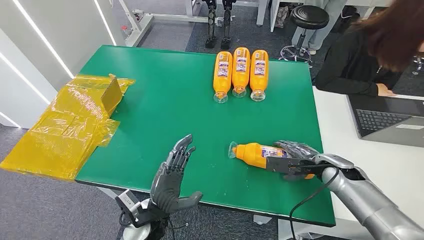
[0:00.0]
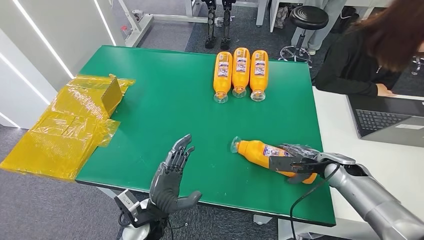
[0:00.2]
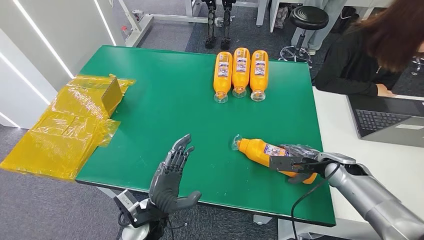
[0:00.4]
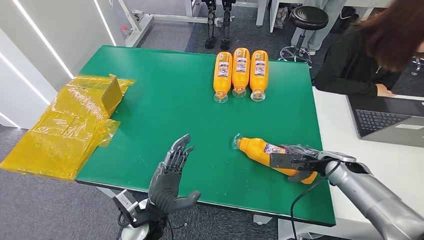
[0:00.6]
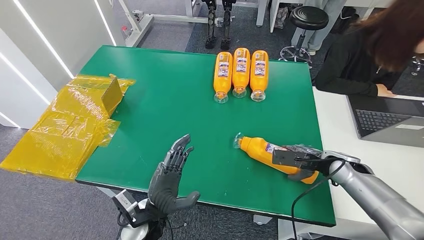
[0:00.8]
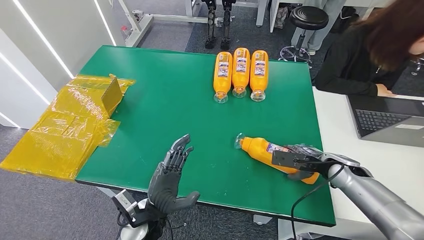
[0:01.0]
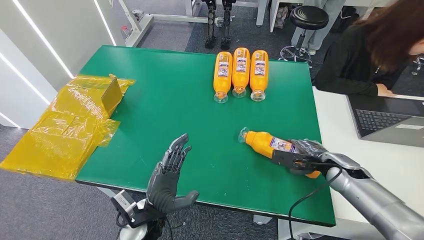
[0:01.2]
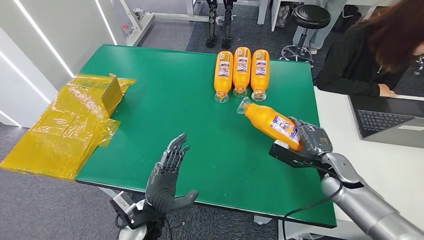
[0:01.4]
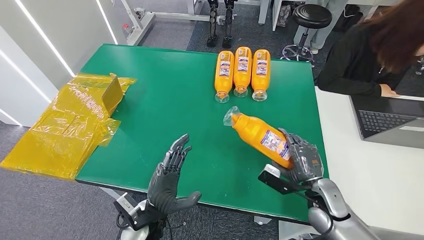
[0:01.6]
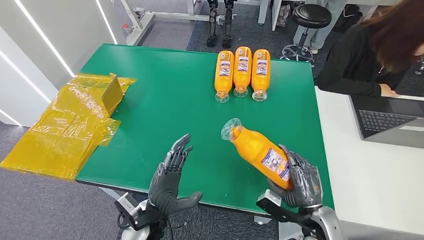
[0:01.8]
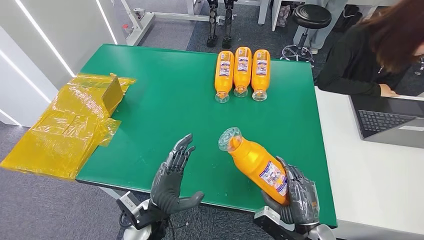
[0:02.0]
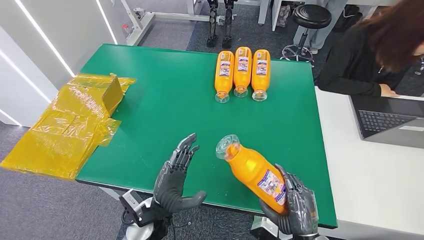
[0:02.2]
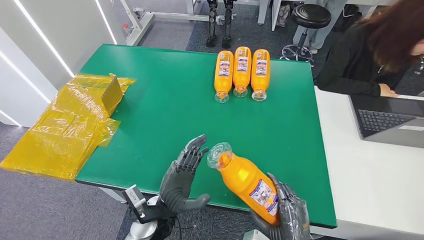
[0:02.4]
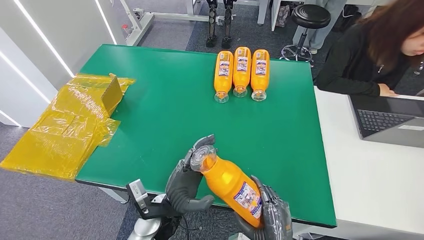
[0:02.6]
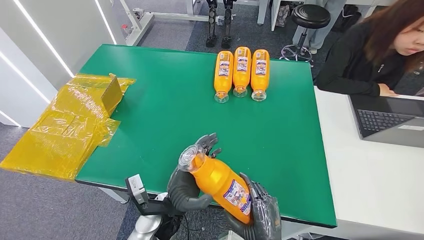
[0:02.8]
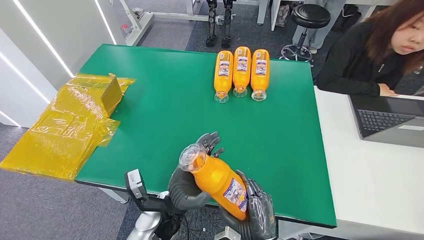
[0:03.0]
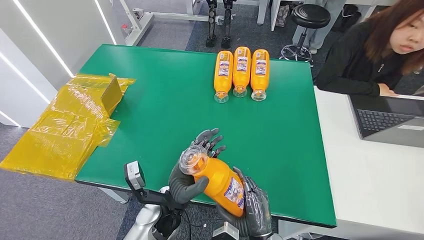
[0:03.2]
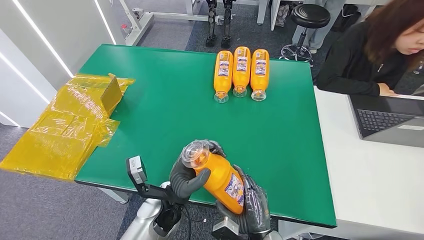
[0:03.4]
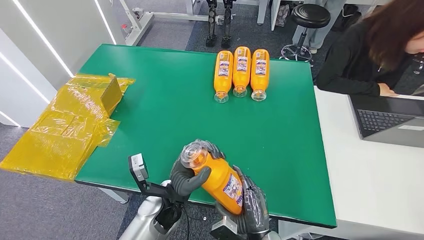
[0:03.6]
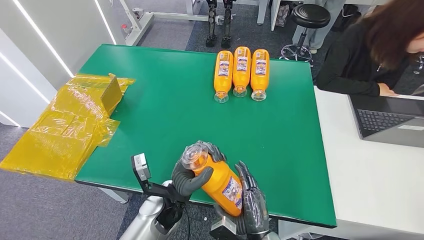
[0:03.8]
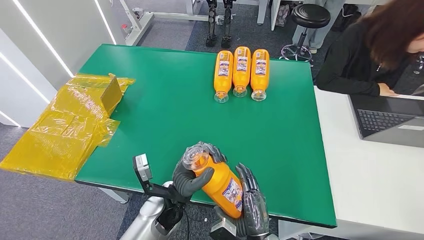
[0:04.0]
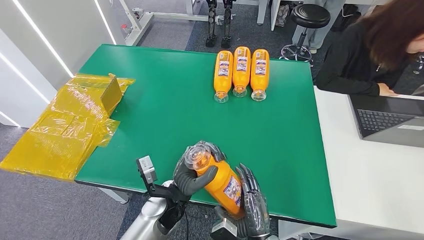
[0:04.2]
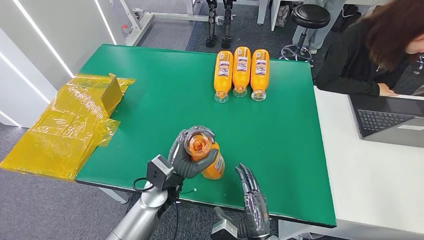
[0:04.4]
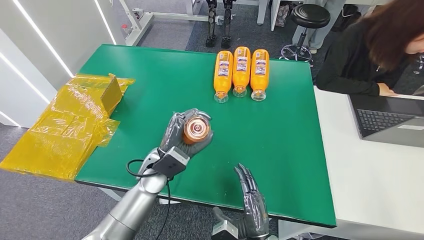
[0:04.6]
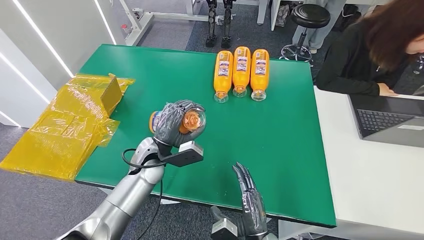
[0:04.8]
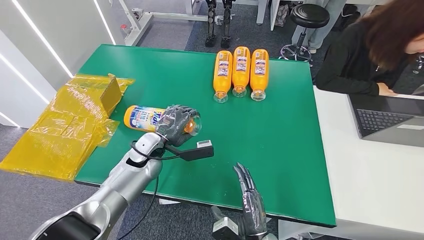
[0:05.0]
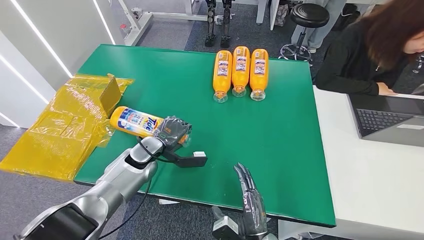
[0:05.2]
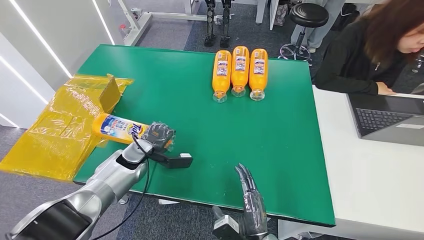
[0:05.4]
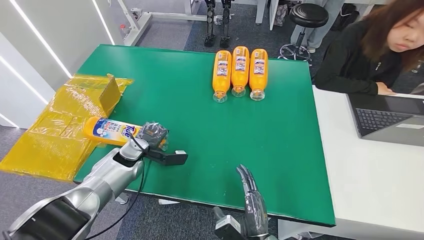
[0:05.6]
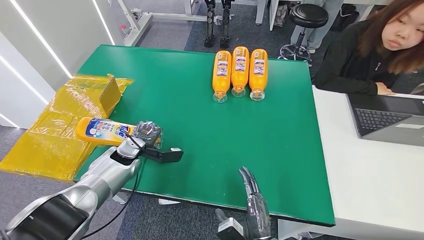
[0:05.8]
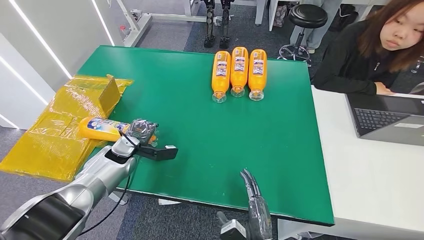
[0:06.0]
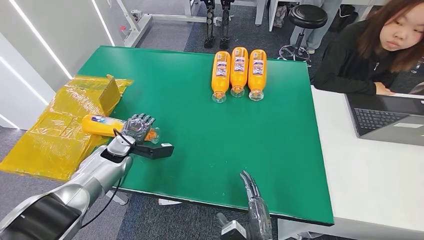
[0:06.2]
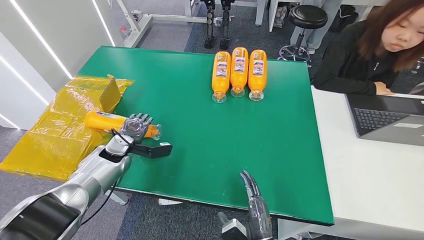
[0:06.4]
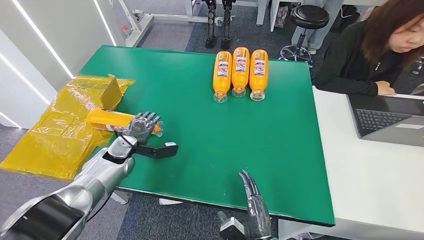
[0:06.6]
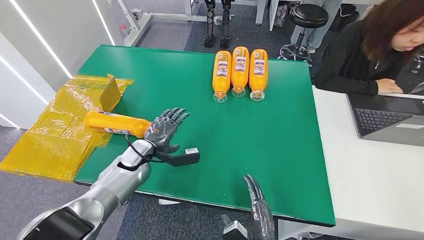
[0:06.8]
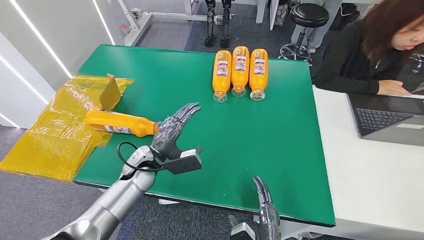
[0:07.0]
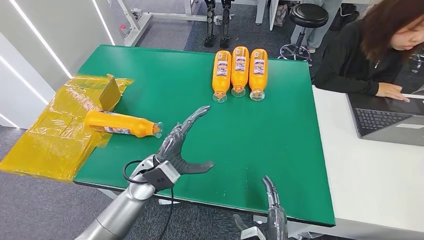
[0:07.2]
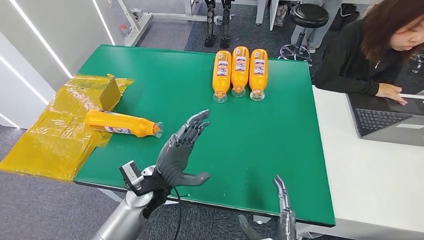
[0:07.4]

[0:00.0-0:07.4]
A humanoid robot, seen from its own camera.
Step, 0:00.0 to 0:03.2: Pick up the bottle from the table.
Step, 0:03.4 to 0:07.4: Turn the bottle to the front side.
0:01.4 to 0:03.0: The left hand ends up approximately 5 cm from where it was, while the right hand is displaced backward, to the left and downward by roughly 30 cm.
0:03.0 to 0:04.4: The left hand moves forward, some 5 cm.
0:06.0 to 0:07.4: The right hand ends up some 5 cm from where it was. Meanwhile the left hand heads to the right and backward, covering some 20 cm.
